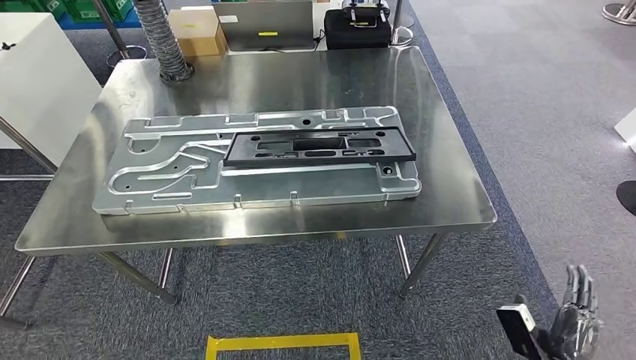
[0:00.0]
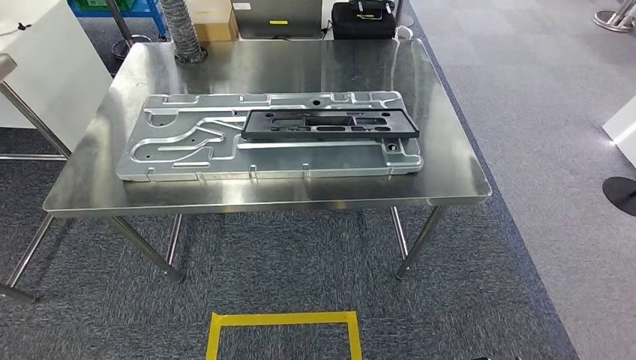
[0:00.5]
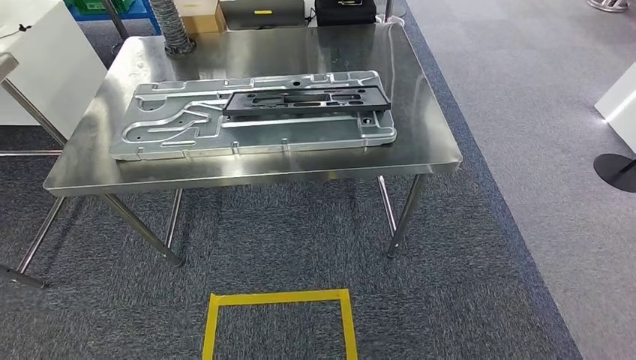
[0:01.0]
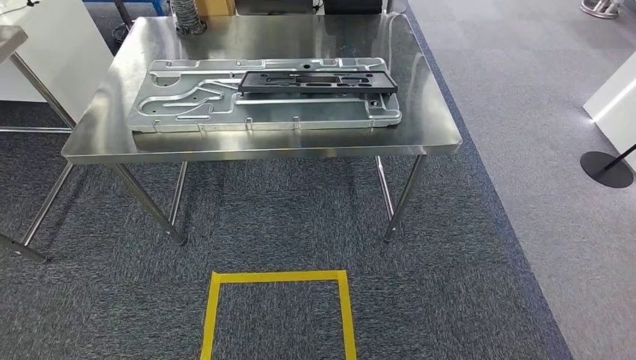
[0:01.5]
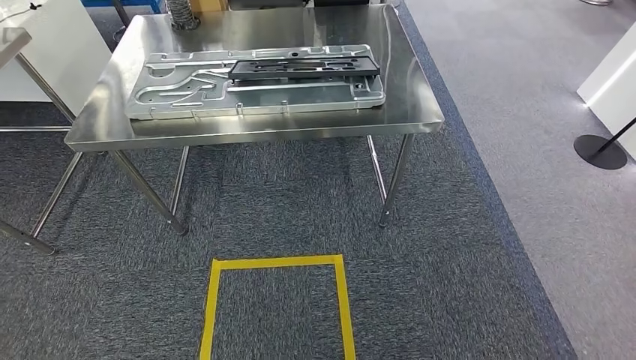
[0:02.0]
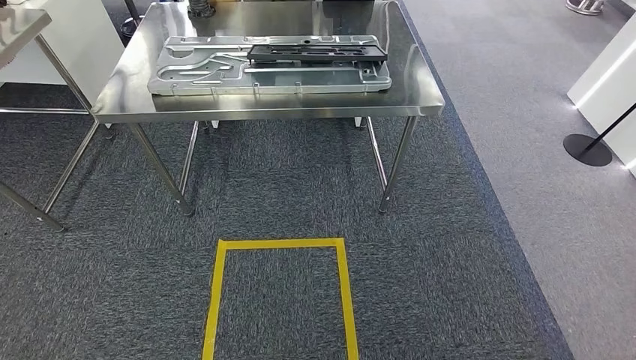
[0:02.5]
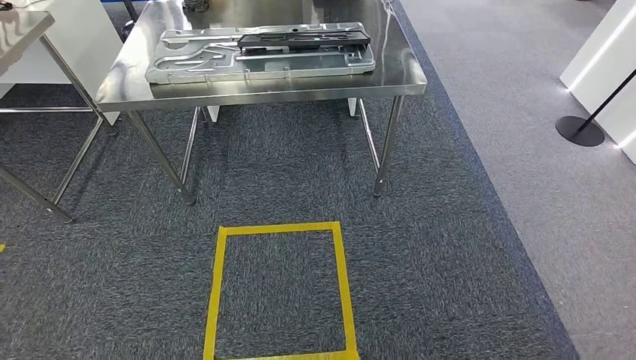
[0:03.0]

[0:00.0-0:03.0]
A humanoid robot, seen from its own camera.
Step, 0:00.0 to 0:03.0: Move to the initial position of the shelf.
